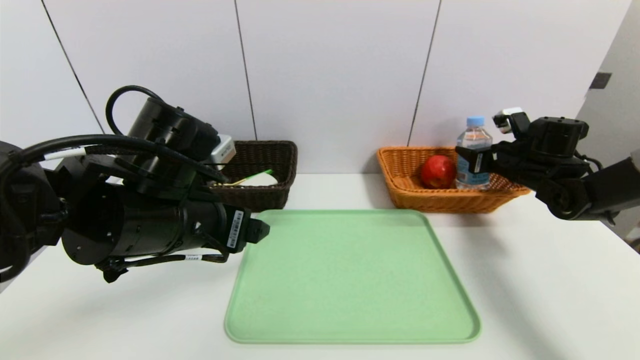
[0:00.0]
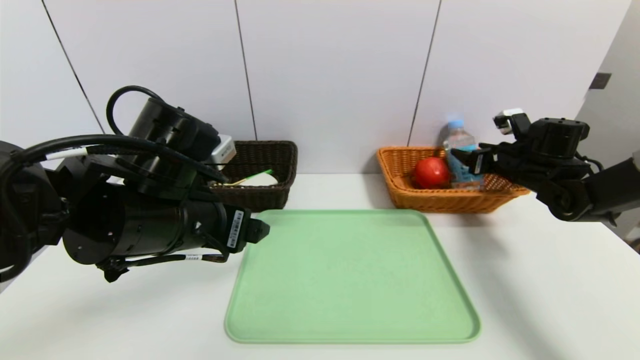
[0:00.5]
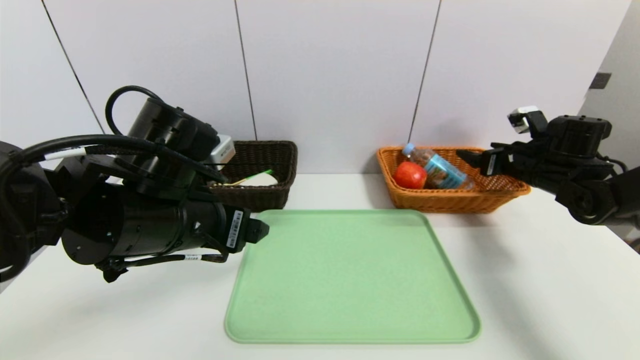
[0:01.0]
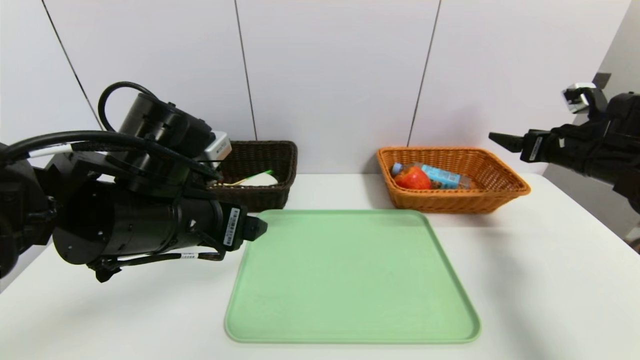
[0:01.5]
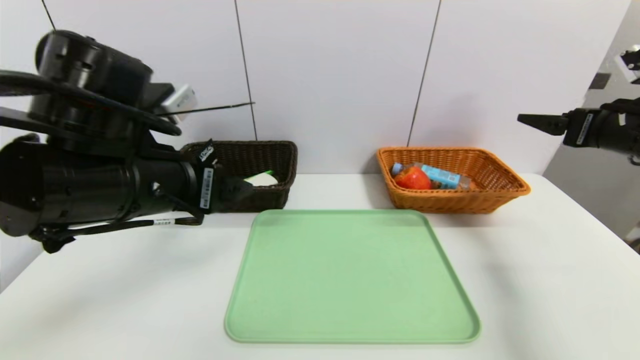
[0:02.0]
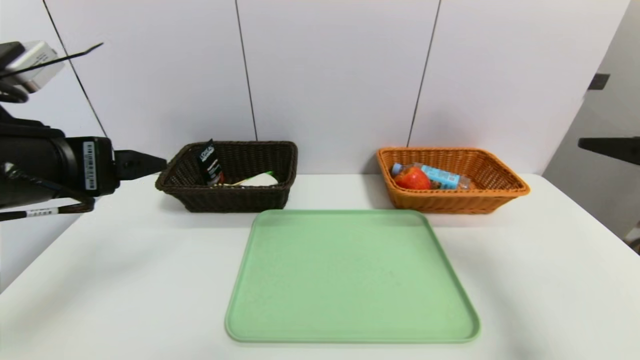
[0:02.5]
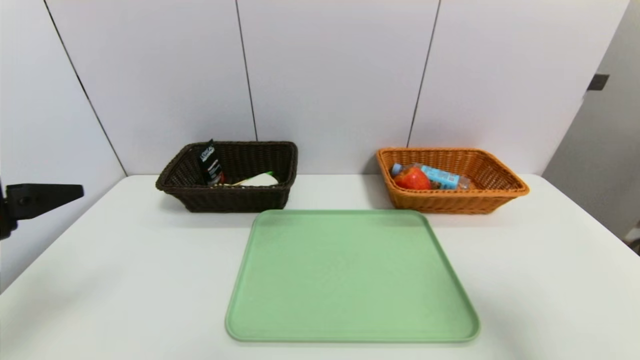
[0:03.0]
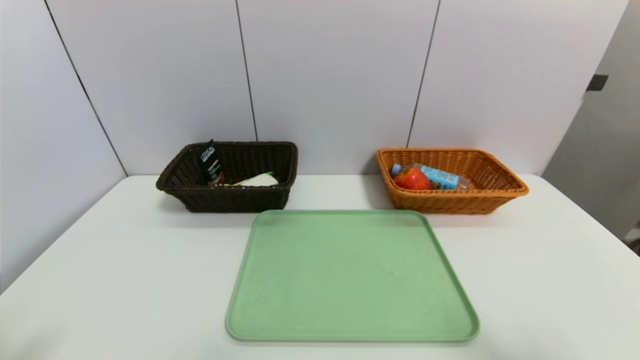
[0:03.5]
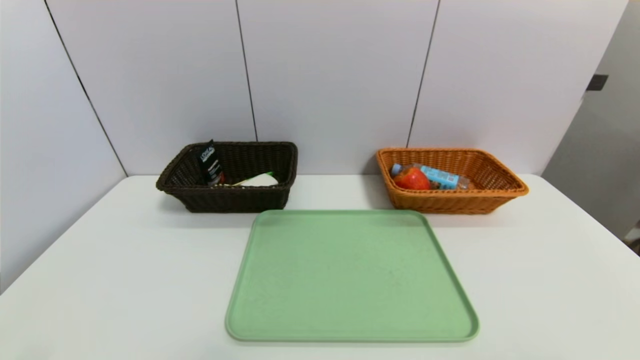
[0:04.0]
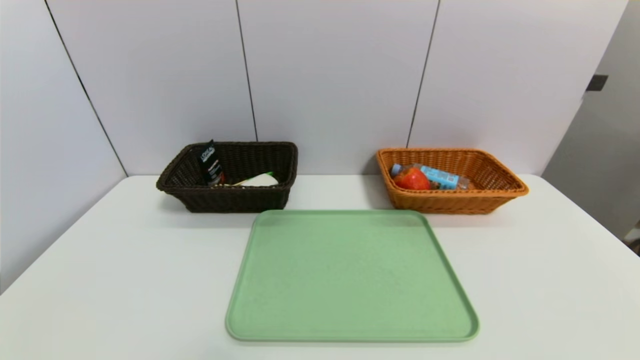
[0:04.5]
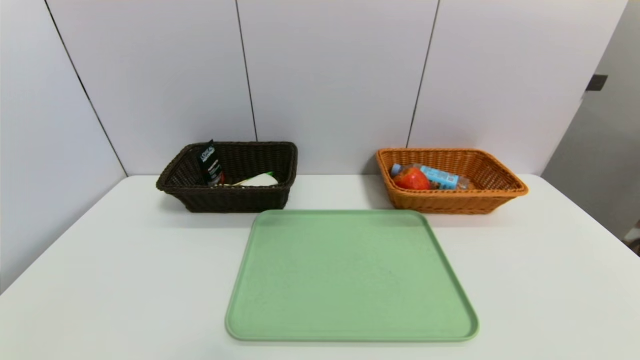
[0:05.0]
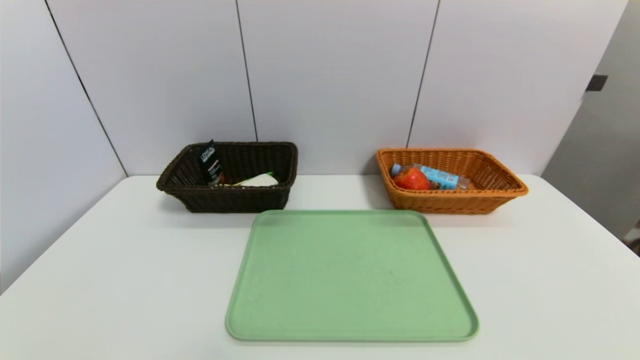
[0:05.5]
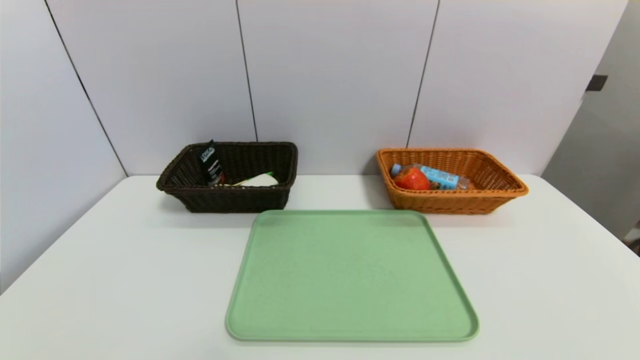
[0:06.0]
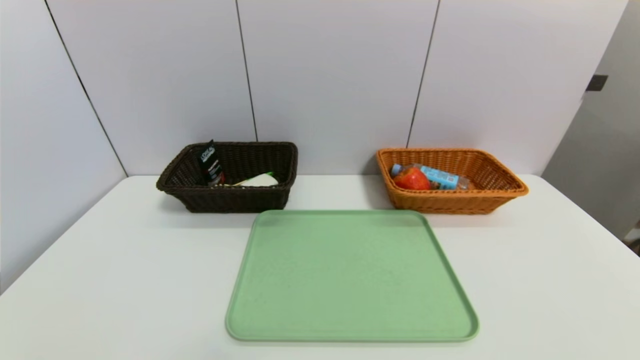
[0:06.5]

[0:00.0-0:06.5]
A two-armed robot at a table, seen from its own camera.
Task of the whole recording: place the food in the right basket with the right gripper, and place the non food items in the left basket with the left gripper.
0:00.0 to 0:02.0: The right gripper goes approximately 20 cm backward and upward, and opens up. Meanwhile the left gripper changes place by about 5 cm.
0:02.0 to 0:04.5: The right gripper goes some 35 cm backward. The left gripper heads backward, to the left and downward, covering roughly 30 cm.
